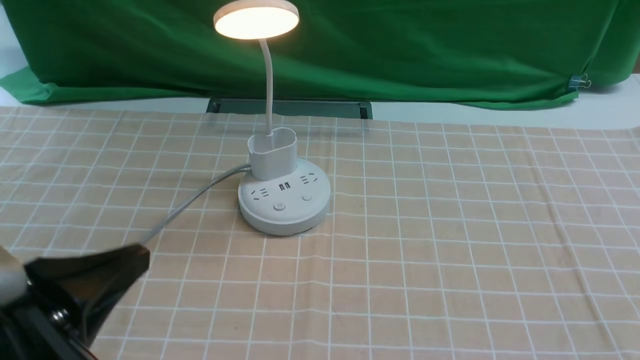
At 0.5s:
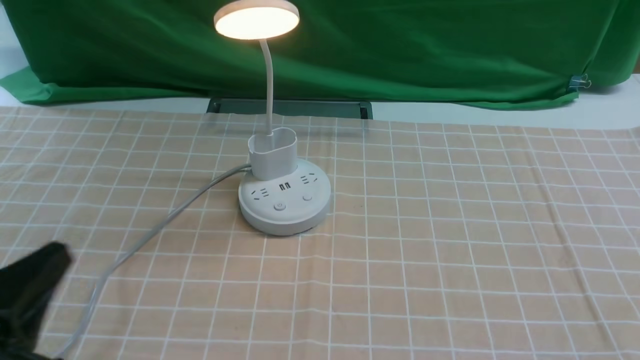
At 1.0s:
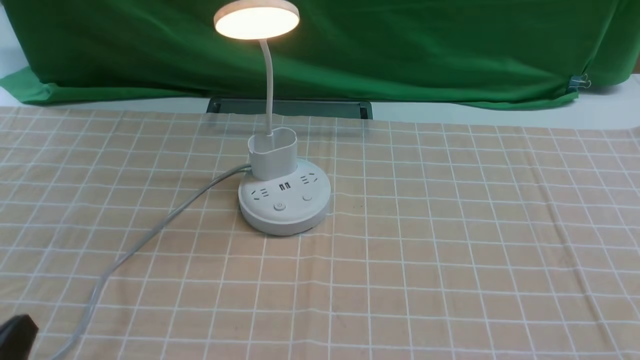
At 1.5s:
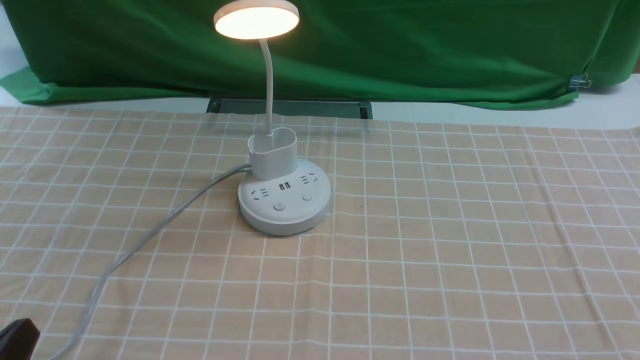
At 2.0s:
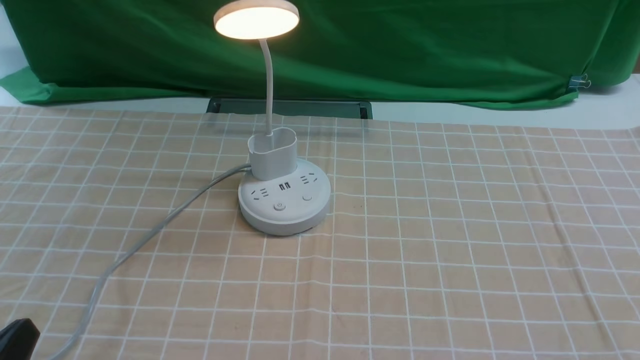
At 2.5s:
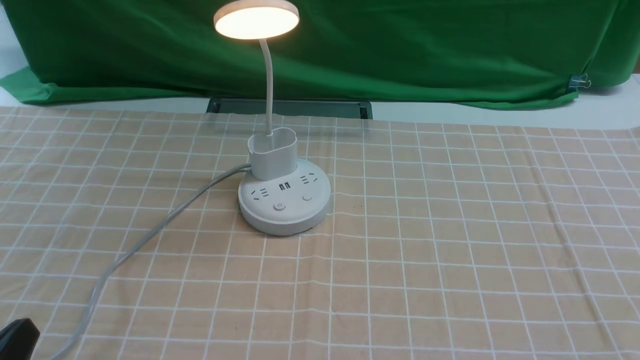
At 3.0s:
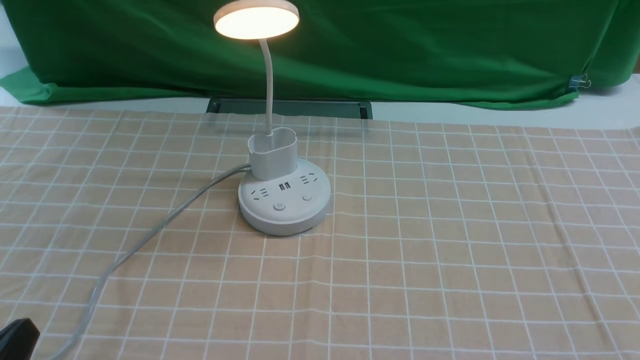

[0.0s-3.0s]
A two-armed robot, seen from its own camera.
0.0s to 1.5s: The left gripper travels downward and to the left by about 10 cm.
1.5s to 3.0s: Both grippers stay put.
